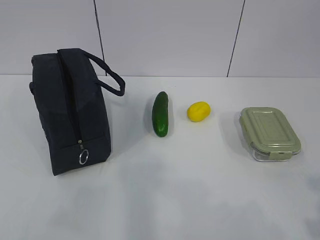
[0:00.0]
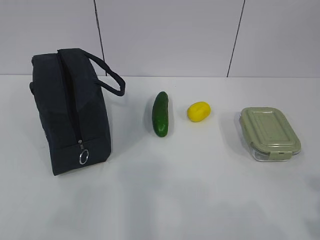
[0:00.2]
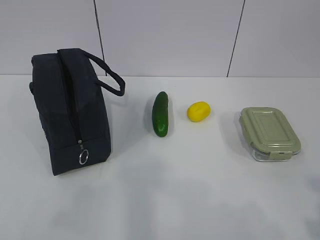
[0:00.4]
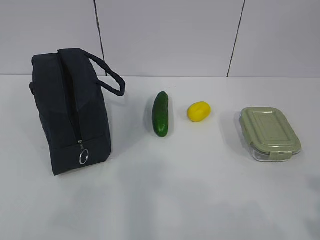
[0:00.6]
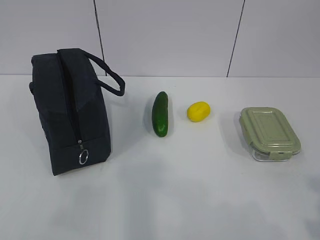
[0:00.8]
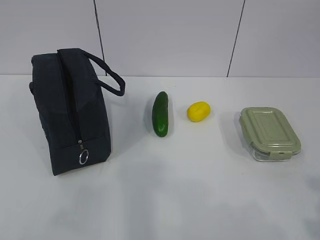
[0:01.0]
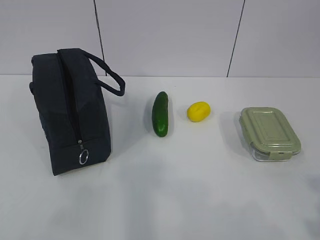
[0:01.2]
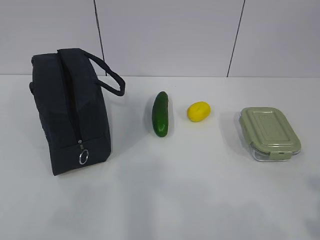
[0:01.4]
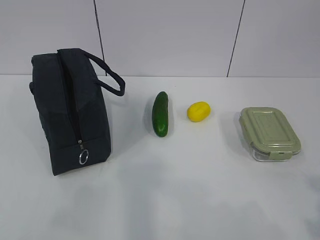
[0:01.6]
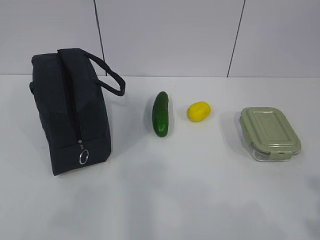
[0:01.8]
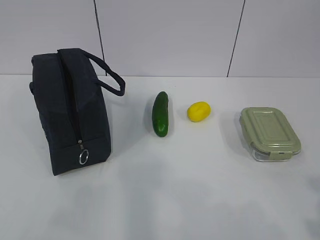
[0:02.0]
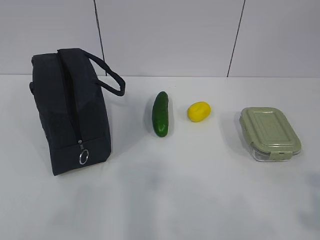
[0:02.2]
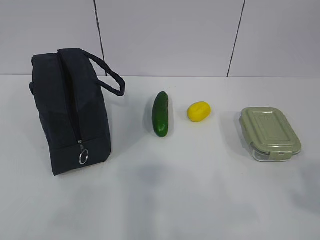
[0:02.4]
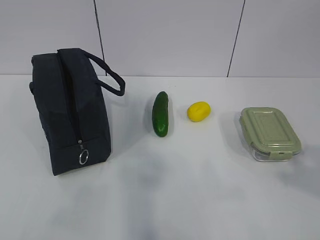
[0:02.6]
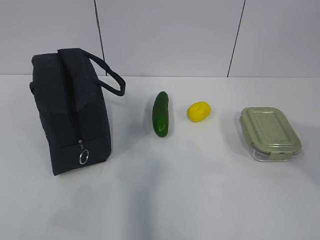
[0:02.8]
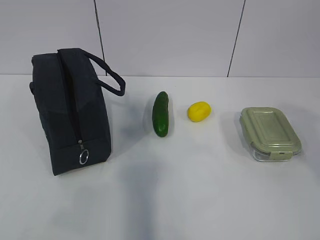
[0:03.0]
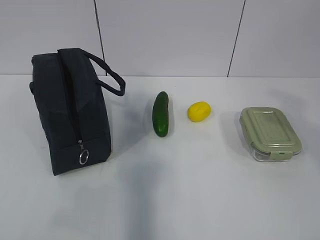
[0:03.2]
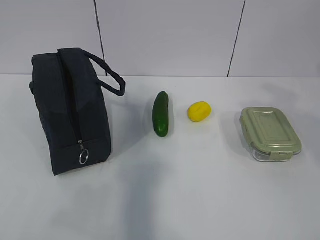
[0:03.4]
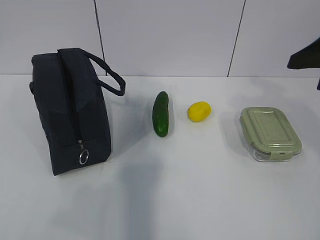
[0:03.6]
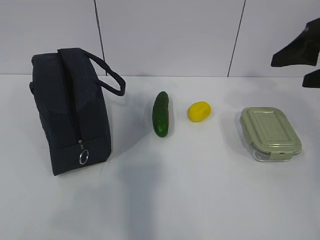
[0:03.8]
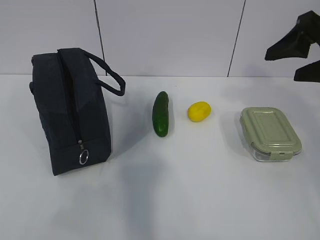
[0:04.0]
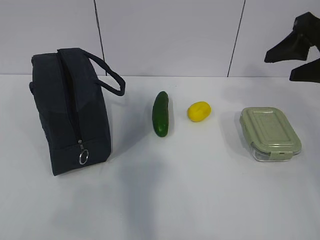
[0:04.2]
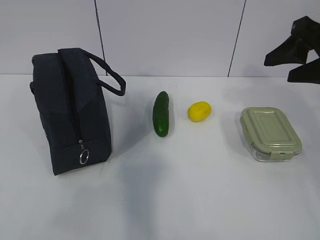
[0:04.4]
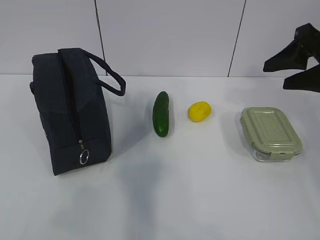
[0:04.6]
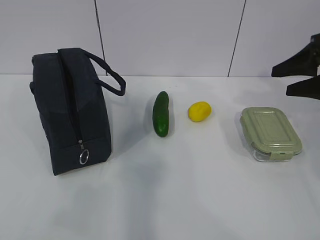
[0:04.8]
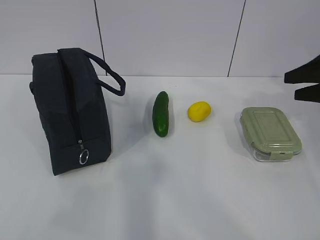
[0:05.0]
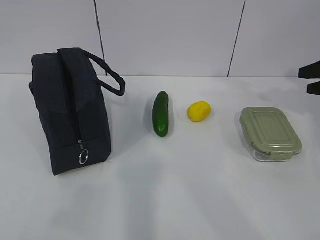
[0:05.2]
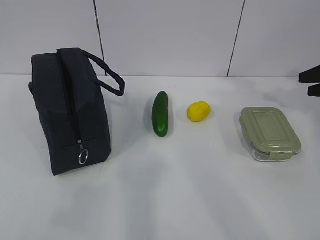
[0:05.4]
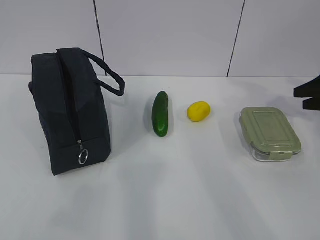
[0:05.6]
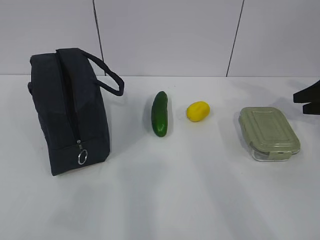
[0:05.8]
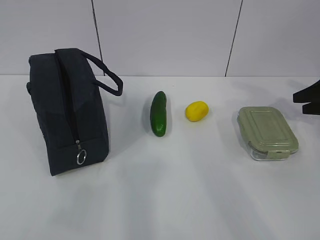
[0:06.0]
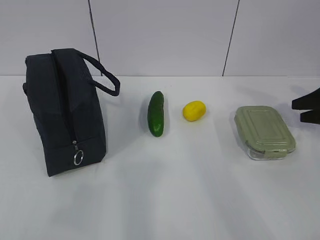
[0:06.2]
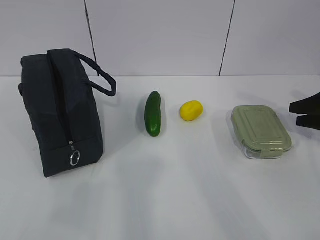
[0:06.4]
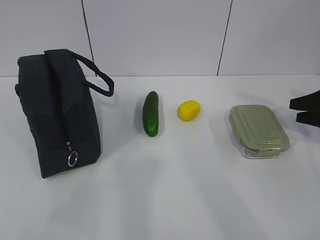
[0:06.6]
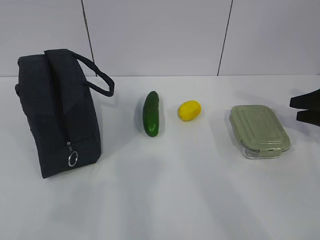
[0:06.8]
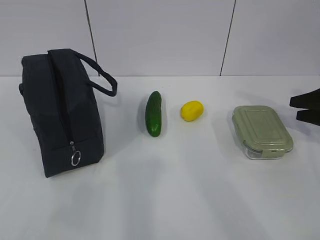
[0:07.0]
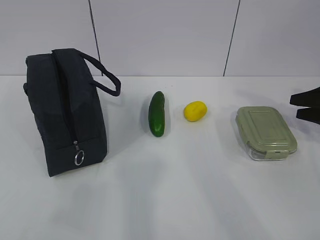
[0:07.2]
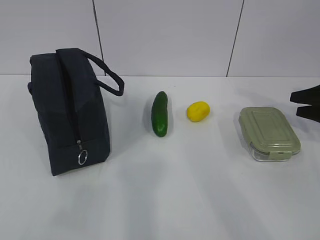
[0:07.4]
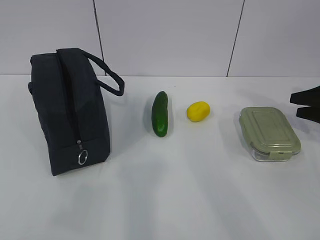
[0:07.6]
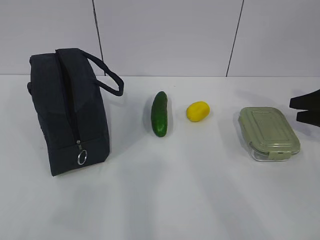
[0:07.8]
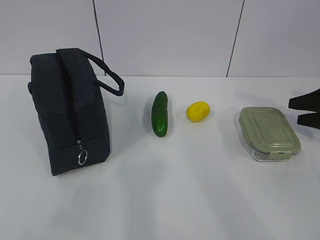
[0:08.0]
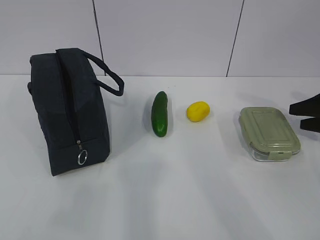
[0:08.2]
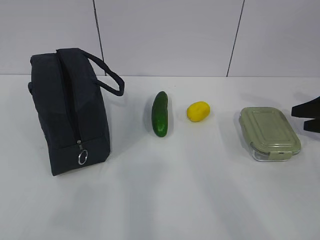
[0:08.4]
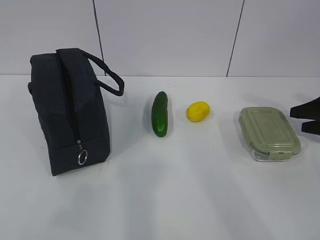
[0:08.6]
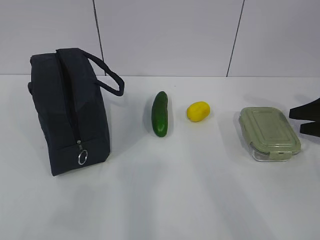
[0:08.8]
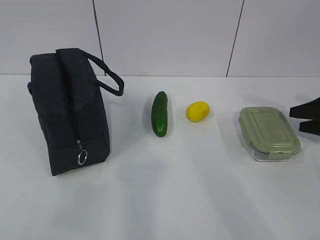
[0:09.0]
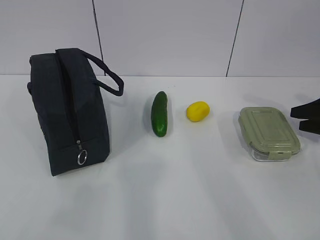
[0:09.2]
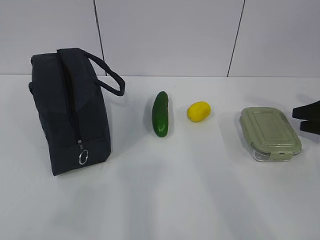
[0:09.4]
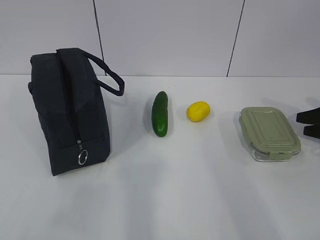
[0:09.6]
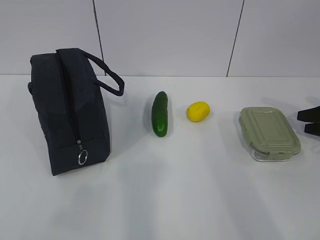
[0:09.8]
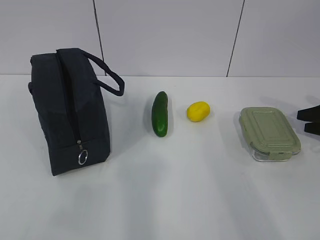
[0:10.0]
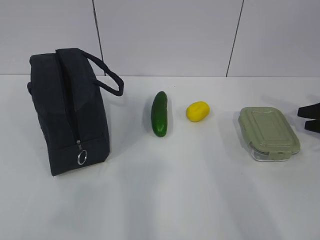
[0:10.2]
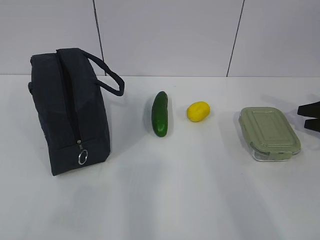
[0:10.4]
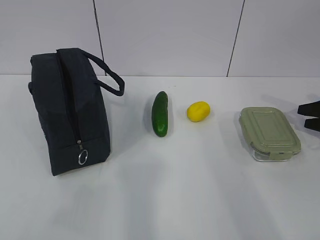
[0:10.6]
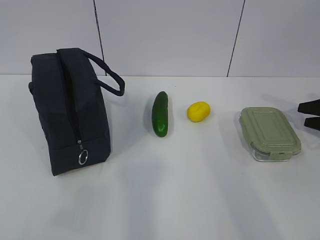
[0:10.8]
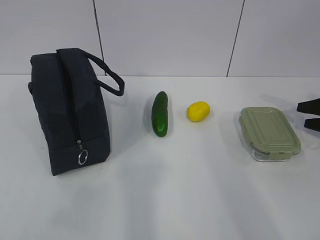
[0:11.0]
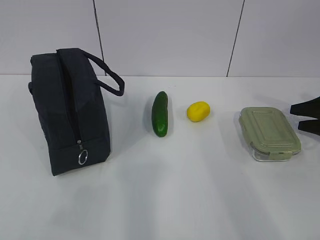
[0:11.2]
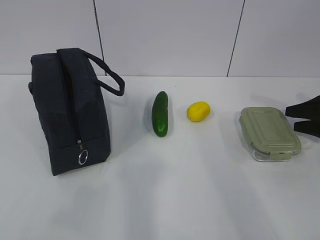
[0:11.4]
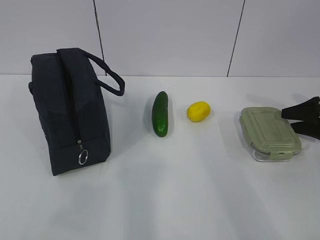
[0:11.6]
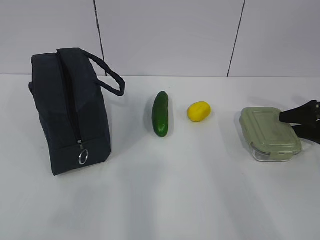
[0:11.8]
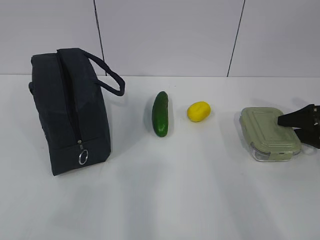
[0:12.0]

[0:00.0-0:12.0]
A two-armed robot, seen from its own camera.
0:01.6 to 0:03.0: The right gripper shifts approximately 15 cm forward and upward.
0:03.0 to 0:04.4: The right gripper goes about 20 cm forward.
0:04.4 to 0:06.0: The right gripper heads to the right, downward and forward, covering some 25 cm.
0:06.0 to 0:09.0: The grippers stay close to where they were, moving slightly.
0:09.0 to 0:12.0: The grippers move only a little.

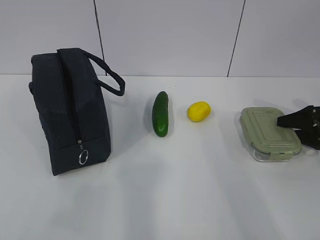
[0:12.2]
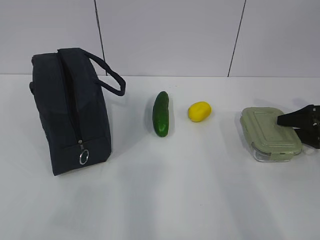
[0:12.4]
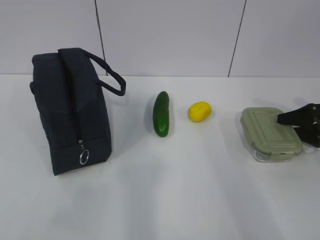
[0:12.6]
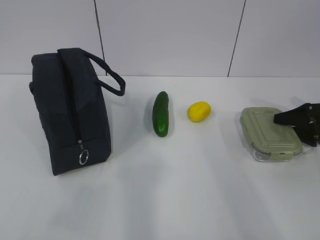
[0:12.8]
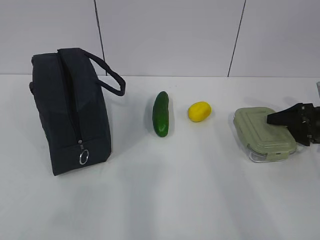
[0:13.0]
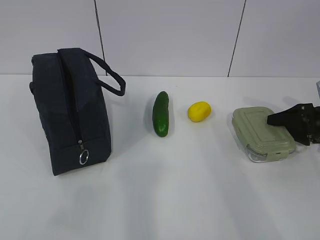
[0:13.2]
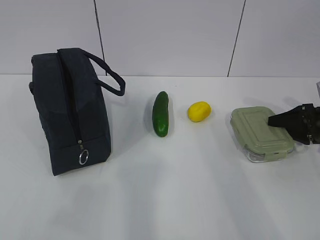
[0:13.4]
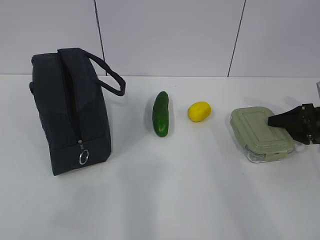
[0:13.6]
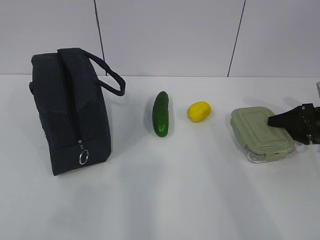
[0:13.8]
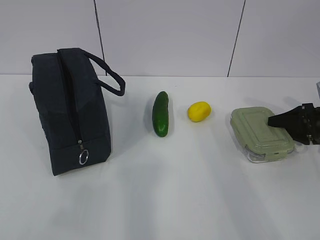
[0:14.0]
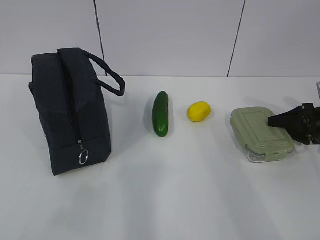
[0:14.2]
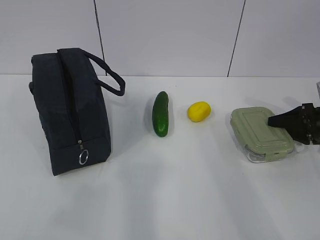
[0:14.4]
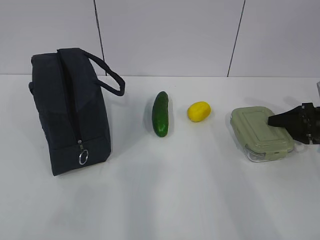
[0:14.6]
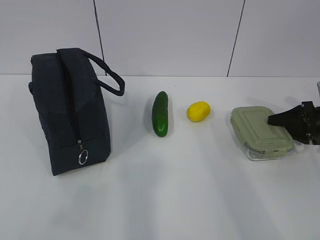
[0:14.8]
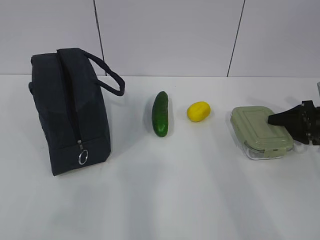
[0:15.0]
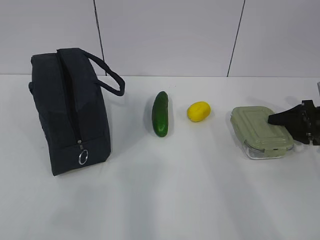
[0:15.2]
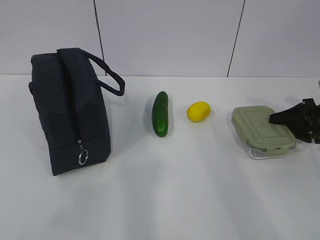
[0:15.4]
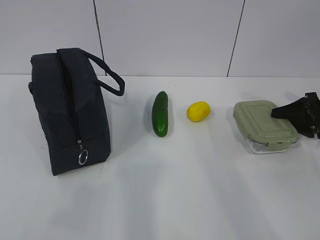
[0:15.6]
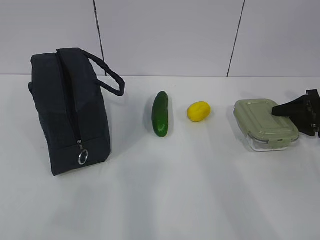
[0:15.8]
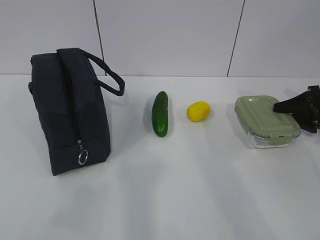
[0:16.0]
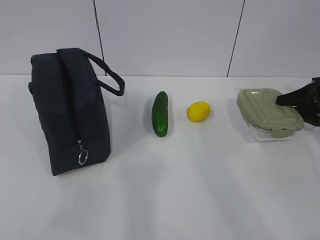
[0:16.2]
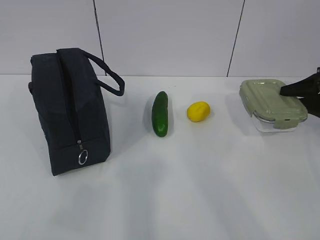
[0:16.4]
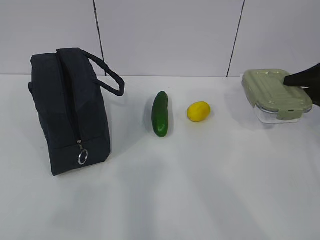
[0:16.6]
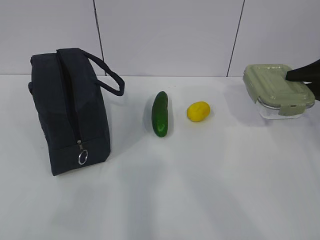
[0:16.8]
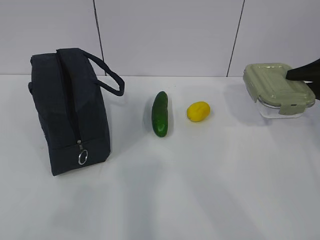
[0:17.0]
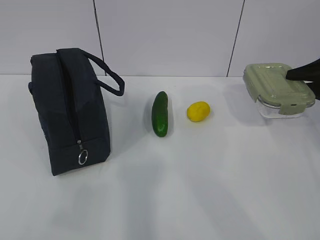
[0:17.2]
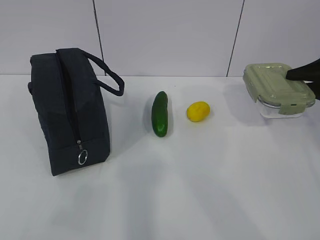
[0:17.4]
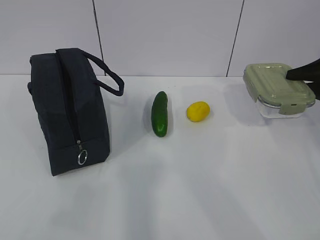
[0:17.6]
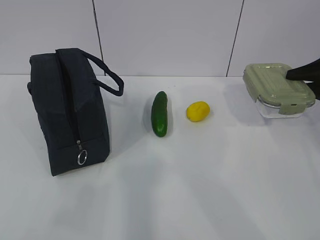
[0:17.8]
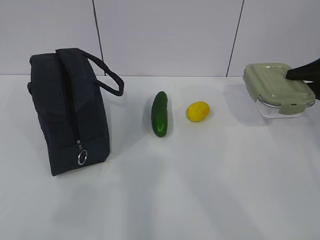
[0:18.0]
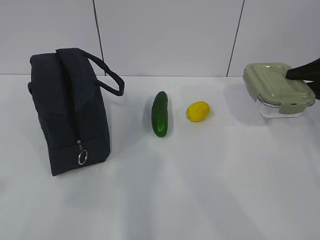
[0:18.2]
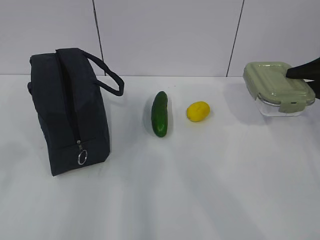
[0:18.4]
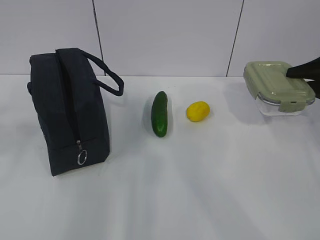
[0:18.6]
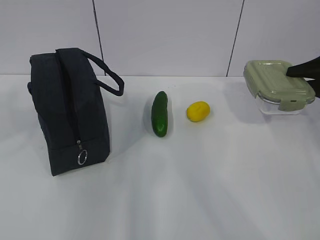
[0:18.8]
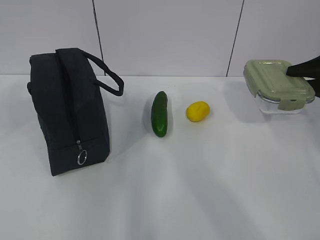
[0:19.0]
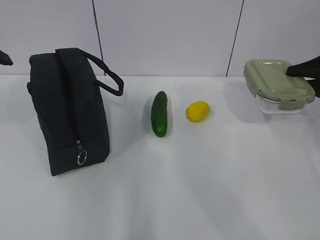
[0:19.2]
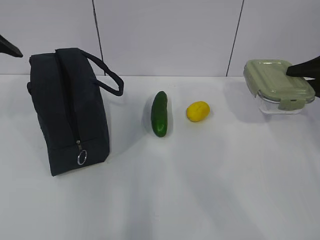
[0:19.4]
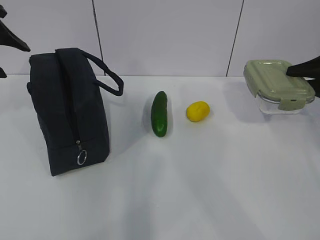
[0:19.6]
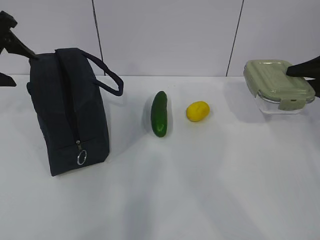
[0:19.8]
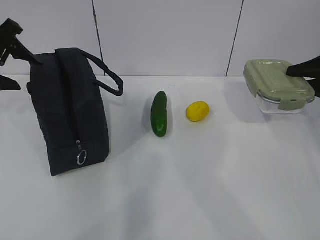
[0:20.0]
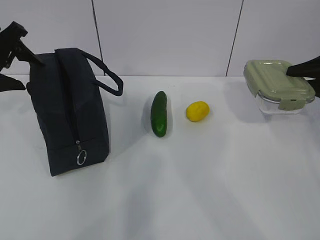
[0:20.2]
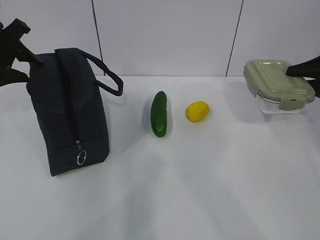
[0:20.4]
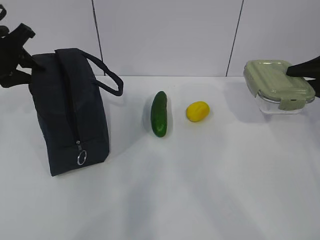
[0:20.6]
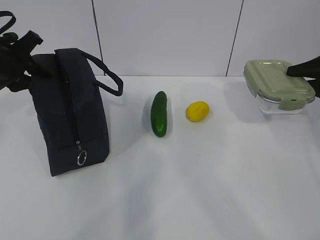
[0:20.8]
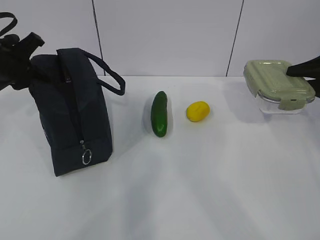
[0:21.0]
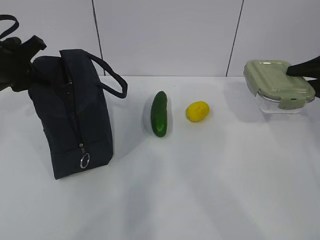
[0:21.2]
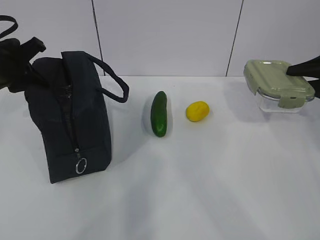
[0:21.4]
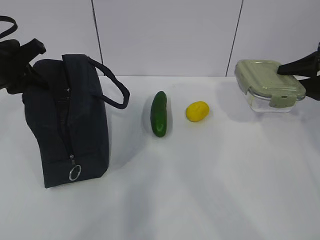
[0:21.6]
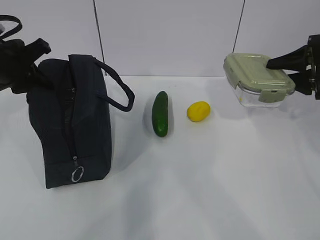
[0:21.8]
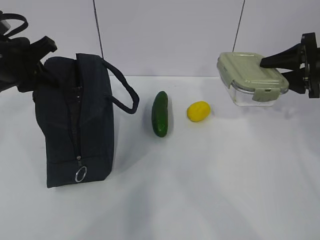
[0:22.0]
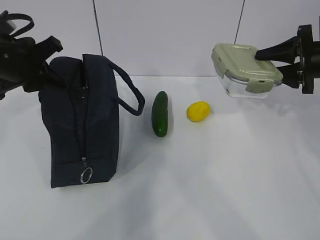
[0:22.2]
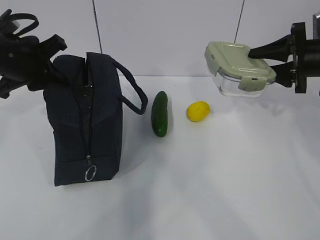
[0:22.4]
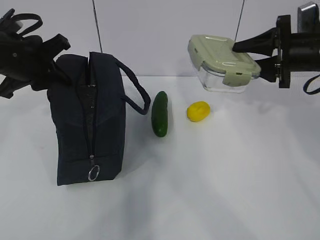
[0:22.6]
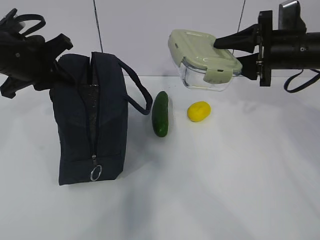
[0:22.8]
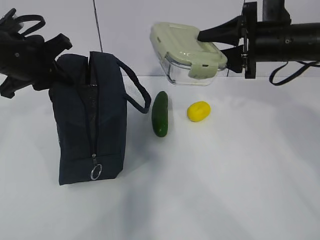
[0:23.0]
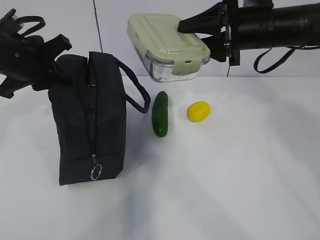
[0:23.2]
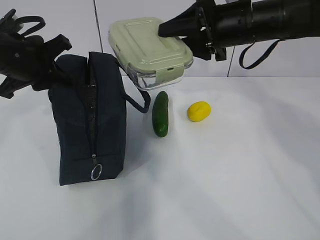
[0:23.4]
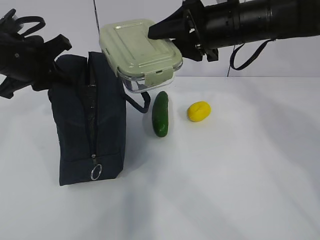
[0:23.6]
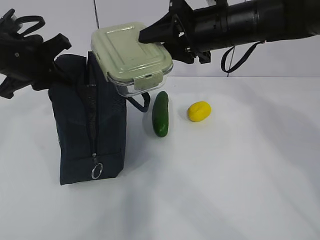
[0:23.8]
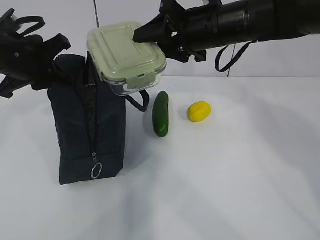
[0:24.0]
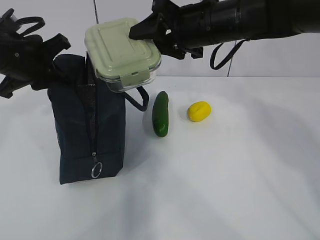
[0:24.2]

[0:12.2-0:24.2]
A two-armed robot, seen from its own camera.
Step, 0:12.2 to 0:14.2: Grasp the box with the right gripper.
Step, 0:14.4 to 0:21.4: Grasp the package with the left gripper.
0:12.2 to 0:15.2: The grippers make only small movements.
0:15.2 to 0:16.6: The right gripper shifts some 10 cm upward.
0:18.2 to 0:19.8: The left gripper goes roughly 30 cm forward.
0:19.8 to 0:21.2: The left gripper changes place by some 5 cm, and closes.
0:21.2 to 0:22.6: The left gripper changes place by roughly 5 cm; the right gripper goes approximately 10 cm to the left.
0:22.6 to 0:24.2: The right gripper travels to the left by about 20 cm.
